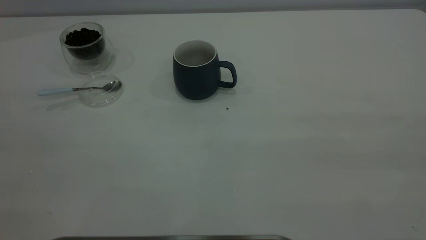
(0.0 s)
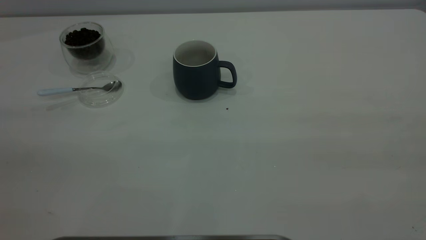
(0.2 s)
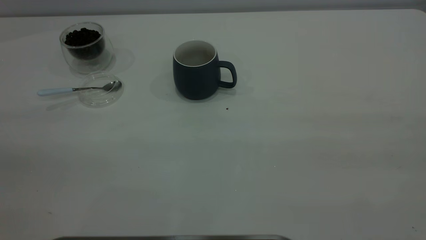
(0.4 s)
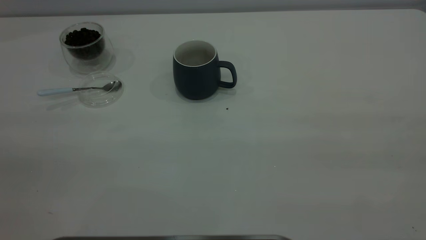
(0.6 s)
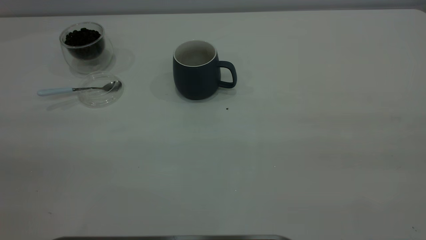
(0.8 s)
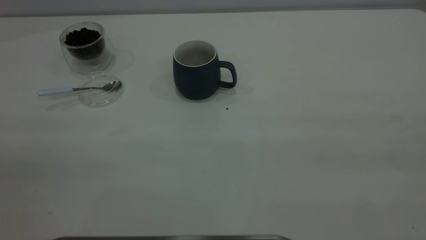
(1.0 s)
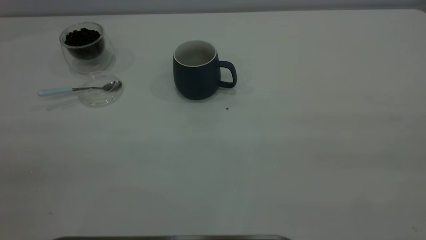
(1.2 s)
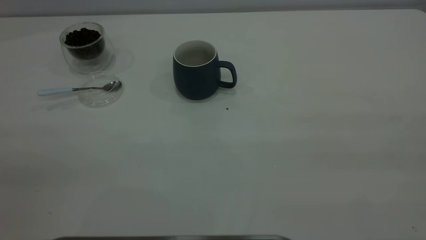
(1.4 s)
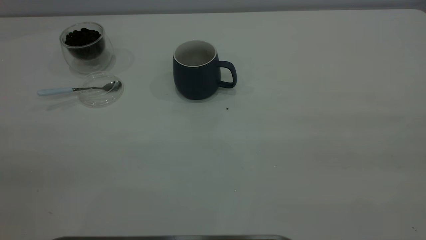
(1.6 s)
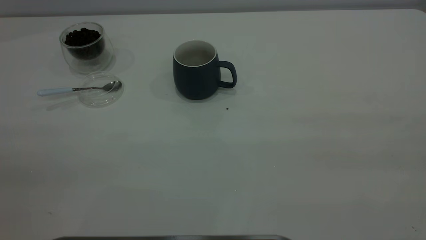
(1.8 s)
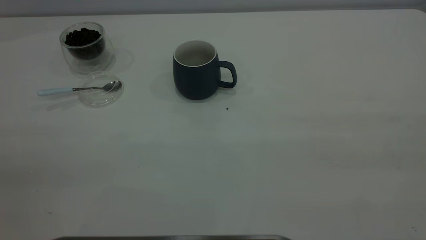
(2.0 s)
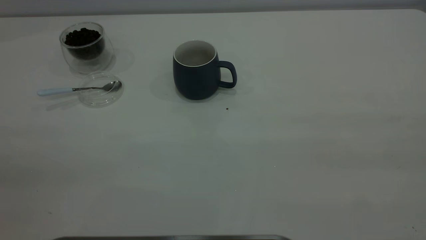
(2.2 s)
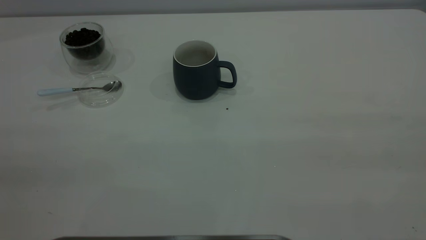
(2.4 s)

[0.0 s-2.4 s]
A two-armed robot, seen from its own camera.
Task of the whole recording: the right gripper place the grey cup in the center of the table, the left gripper take the blue spoon from the cup lid and scoop out the coffee beans from the coffee cup and put them into the grey cup, the left gripper put the spoon back into the cup lid.
1.2 to 2.4 s: The two grippers keep their place.
